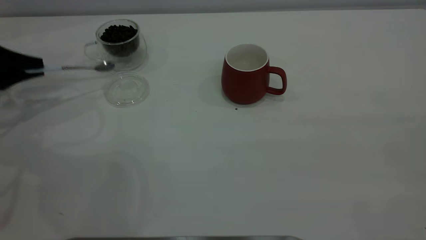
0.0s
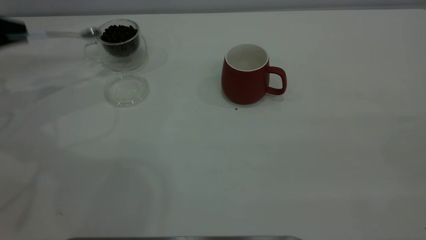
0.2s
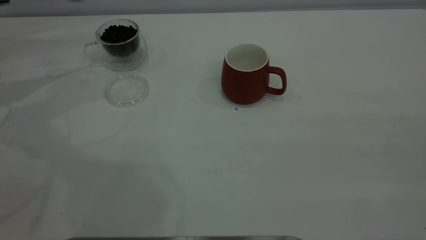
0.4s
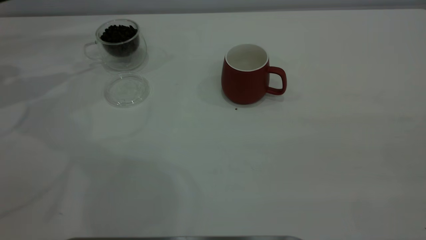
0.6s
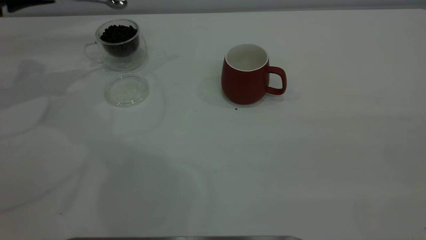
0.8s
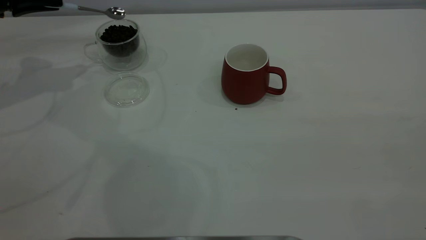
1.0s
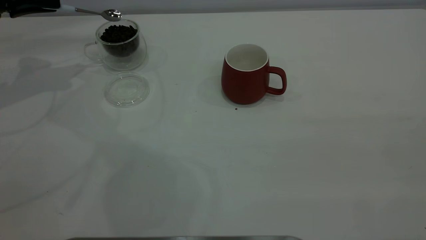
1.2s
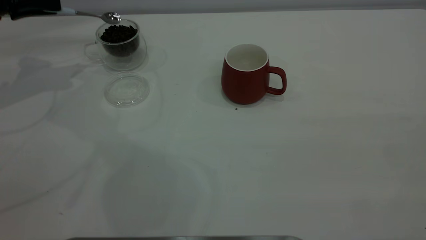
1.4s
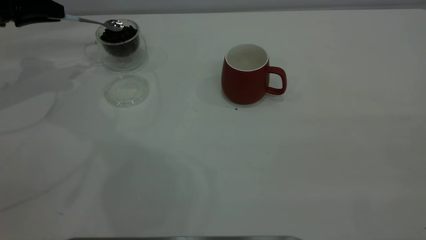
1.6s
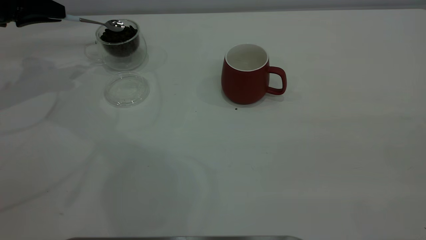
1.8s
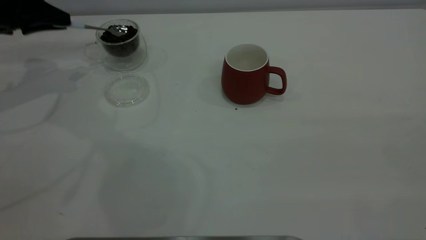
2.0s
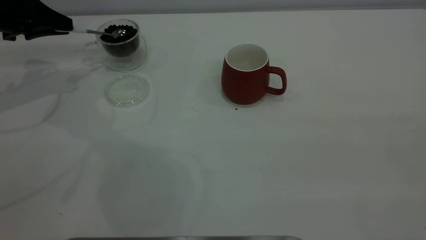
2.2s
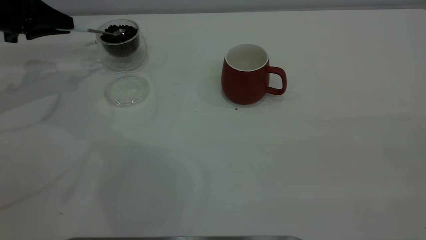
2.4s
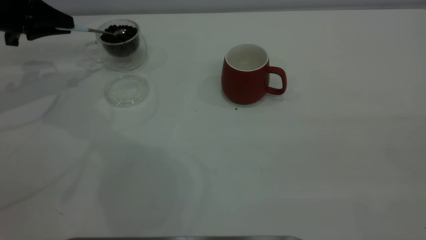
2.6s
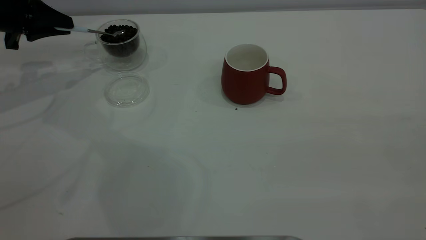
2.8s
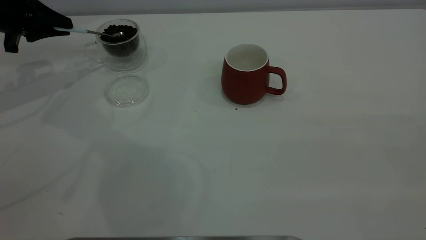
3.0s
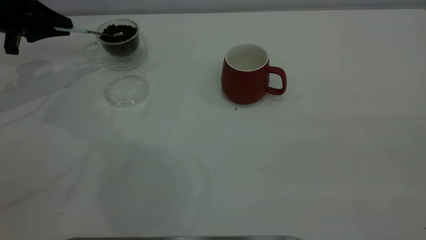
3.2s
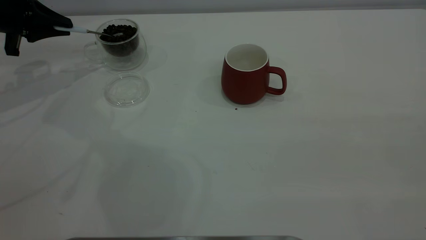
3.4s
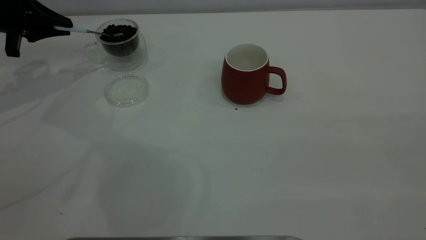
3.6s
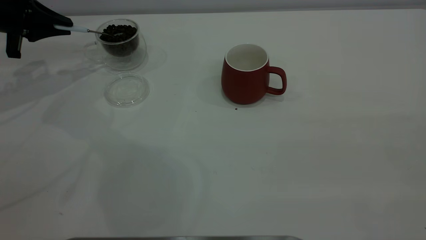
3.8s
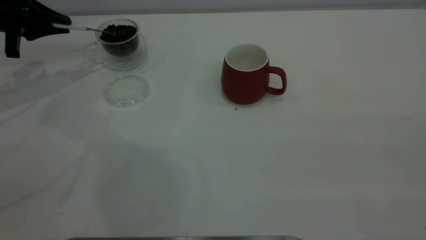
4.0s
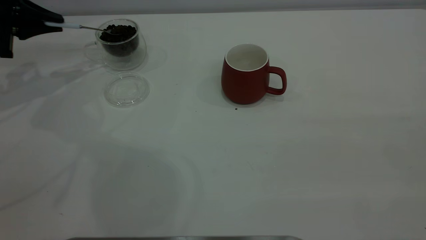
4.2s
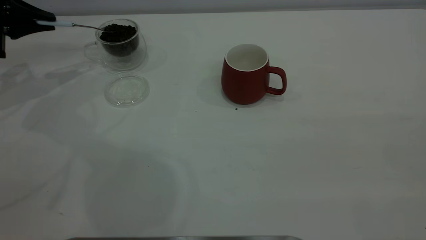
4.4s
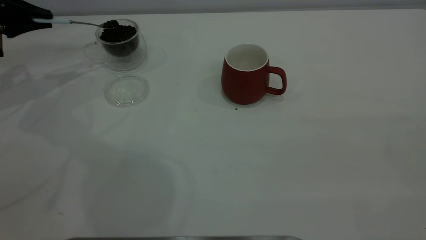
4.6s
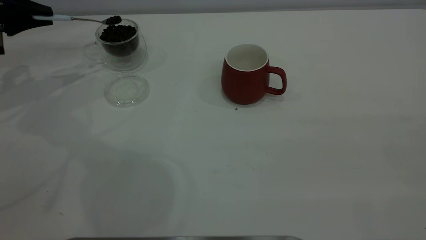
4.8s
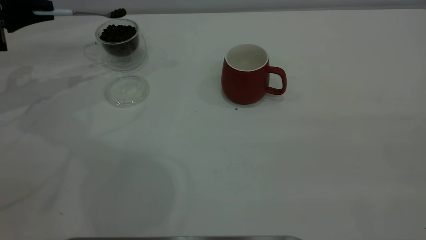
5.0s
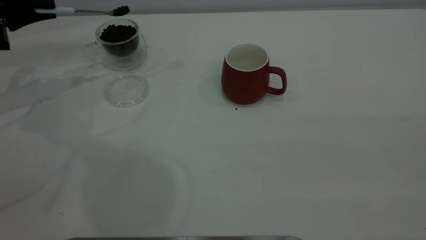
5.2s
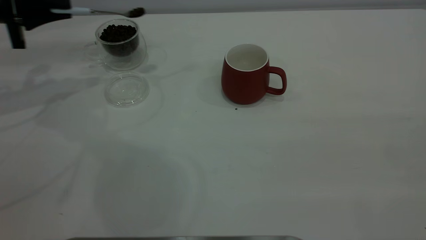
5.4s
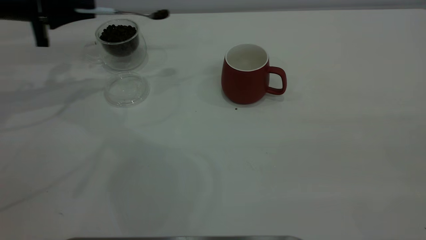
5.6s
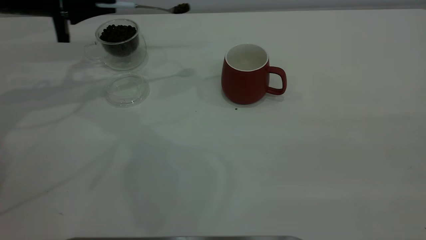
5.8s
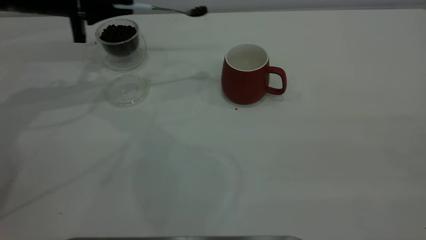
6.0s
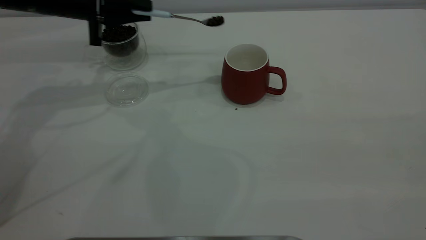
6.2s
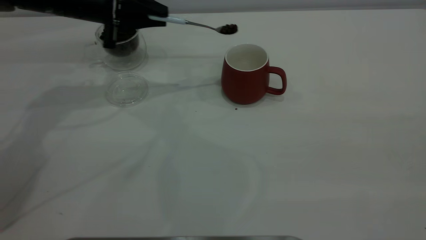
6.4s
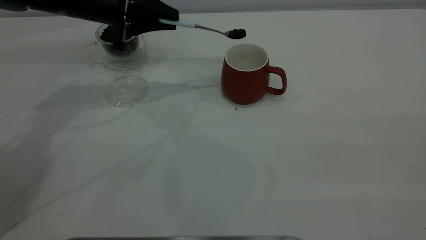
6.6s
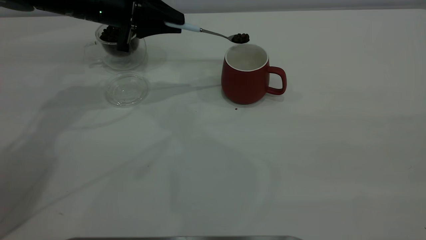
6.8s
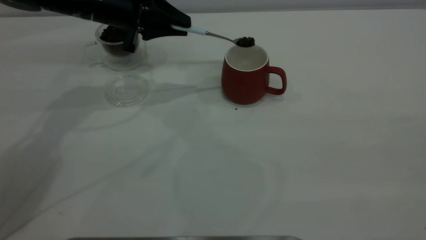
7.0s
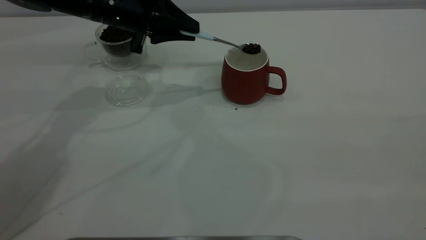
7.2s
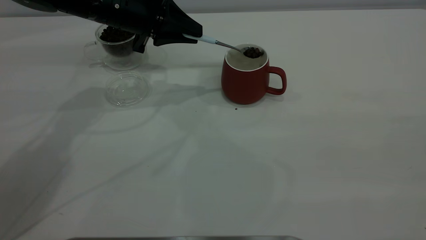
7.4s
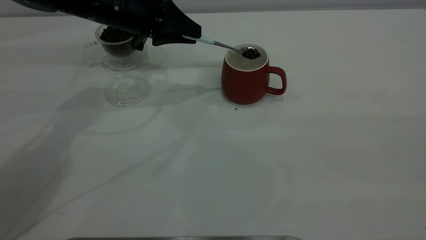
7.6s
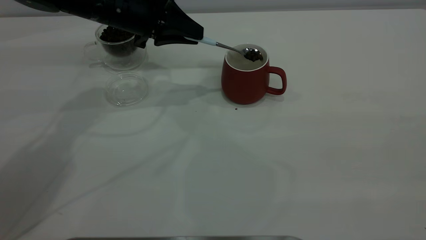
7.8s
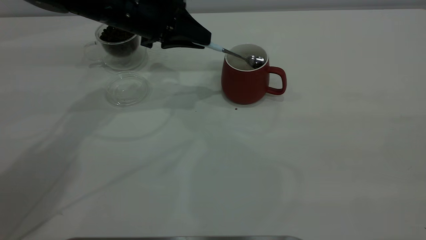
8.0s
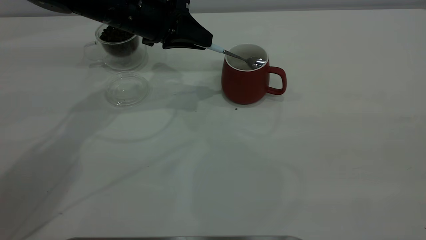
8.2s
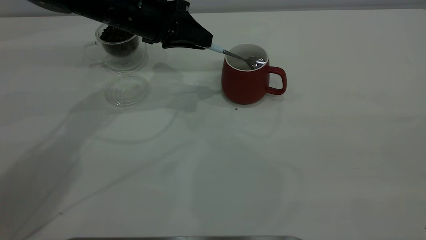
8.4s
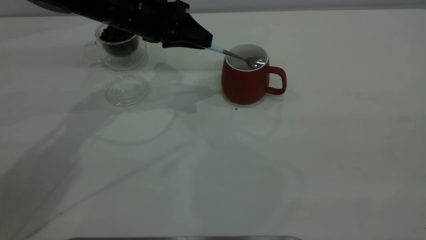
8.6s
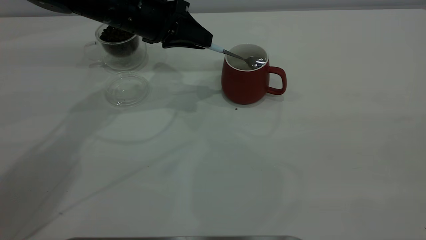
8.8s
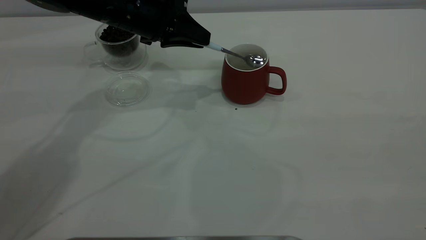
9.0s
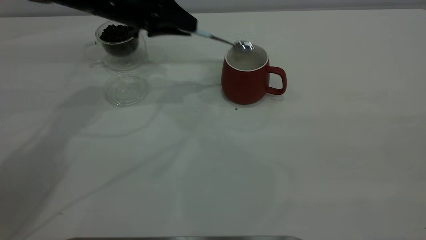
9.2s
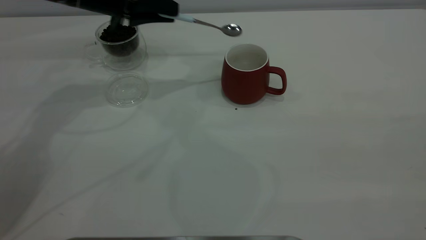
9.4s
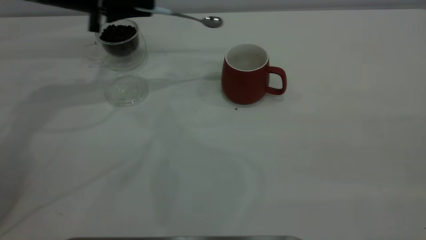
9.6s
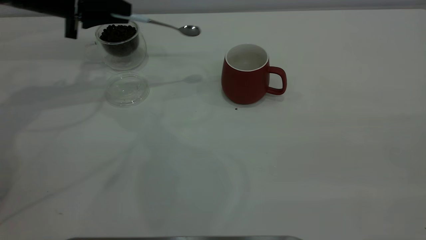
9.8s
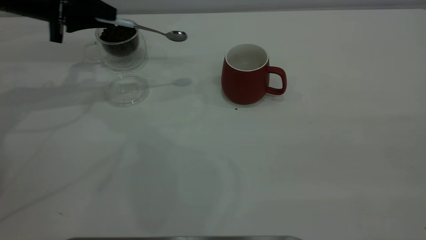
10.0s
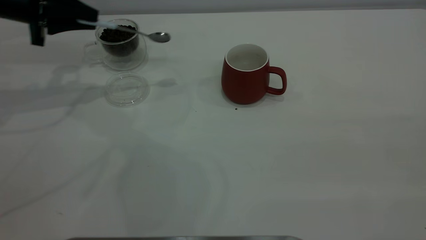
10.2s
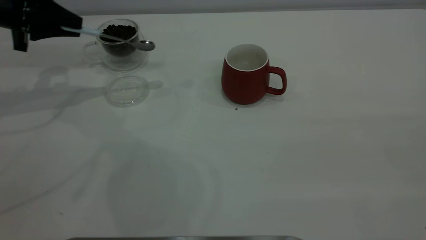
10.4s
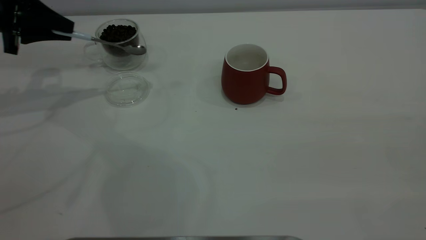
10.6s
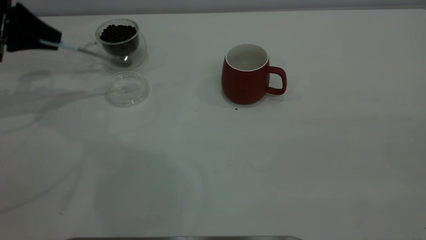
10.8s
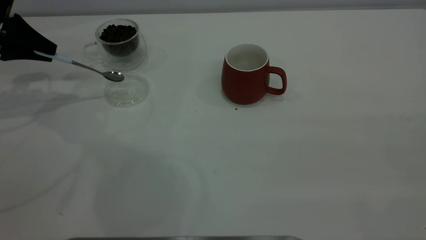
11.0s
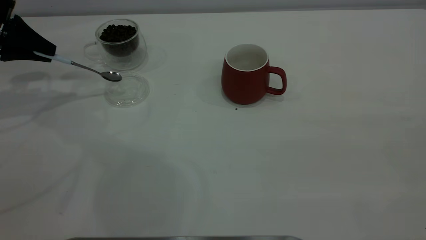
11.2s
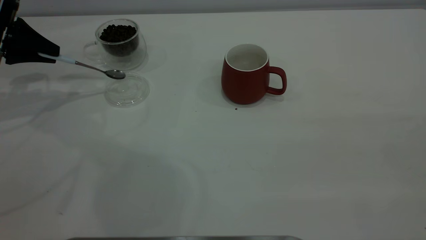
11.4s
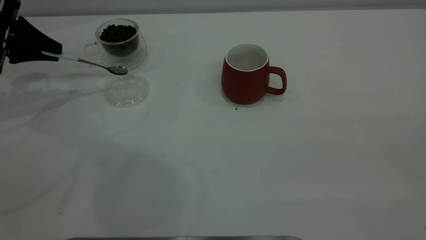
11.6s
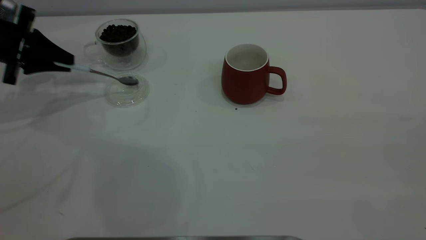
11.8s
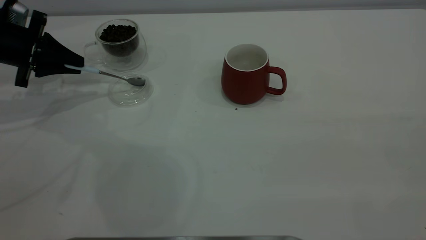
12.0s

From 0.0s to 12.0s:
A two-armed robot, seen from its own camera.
Task of the whole recording: the right gripper place the red cup in the center of the table, the left gripper take the blue spoon from the cup lid and scoop out the coffee beans from the coffee cup and put them into the red cup, the left gripper put the spoon back into the cup lid.
Step, from 0.0s to 9.2s: Scoop a spoonful of beans into the cup.
From 0.0s to 1.6s: The left gripper moves upward and forward, about 10 cm.
From 3.0s to 4.4s: The grippers make only small movements.
From 4.4s to 6.0s: The left gripper heads to the right, covering about 15 cm.
From 6.0s to 7.6s: The left gripper is displaced to the right by approximately 10 cm.
From 7.6s to 9.0s: The grippers stay close to where they were, moving slightly.
From 9.0s to 10.4s: The left gripper moves to the left, some 20 cm.
From 10.4s to 12.0s: The left gripper moves downward, roughly 5 cm.

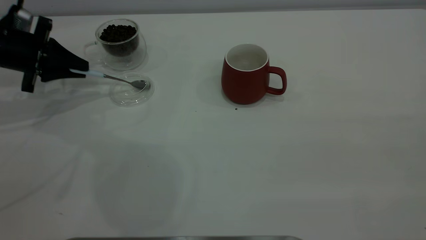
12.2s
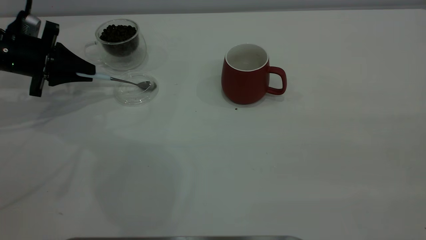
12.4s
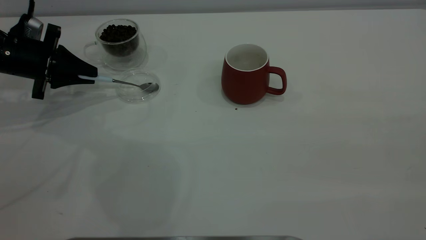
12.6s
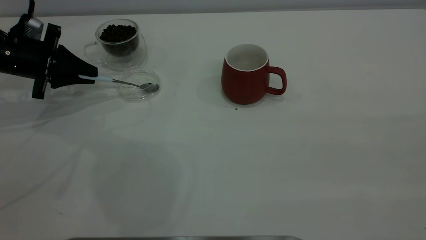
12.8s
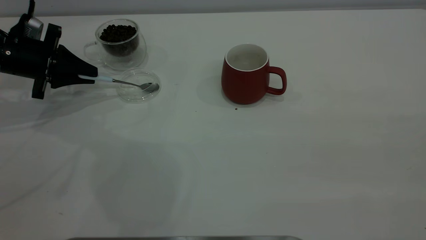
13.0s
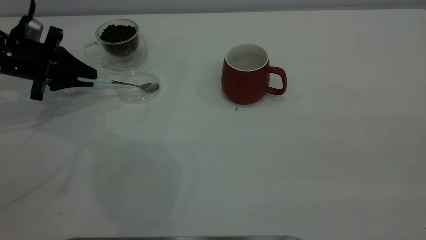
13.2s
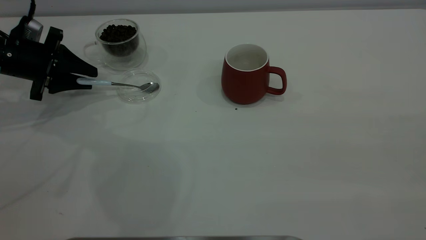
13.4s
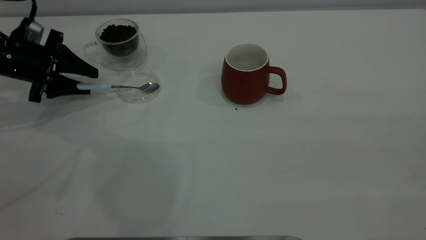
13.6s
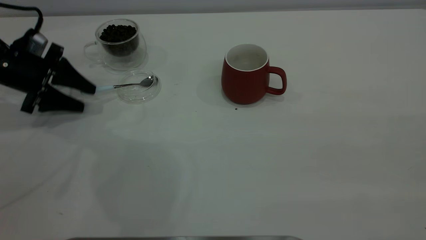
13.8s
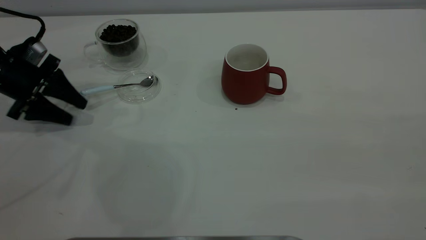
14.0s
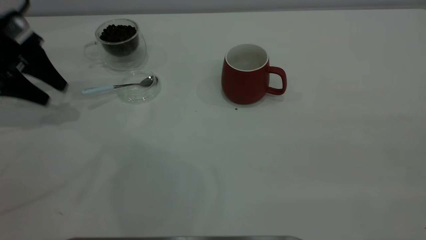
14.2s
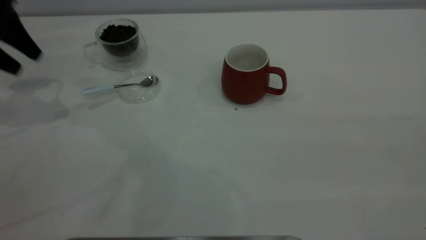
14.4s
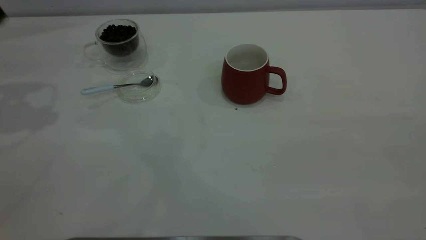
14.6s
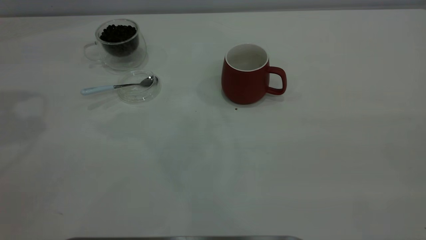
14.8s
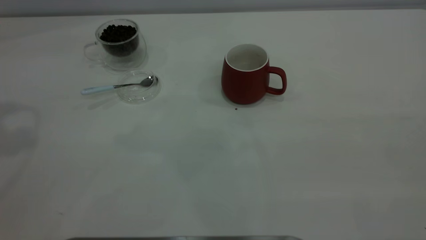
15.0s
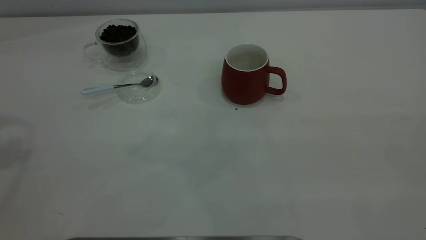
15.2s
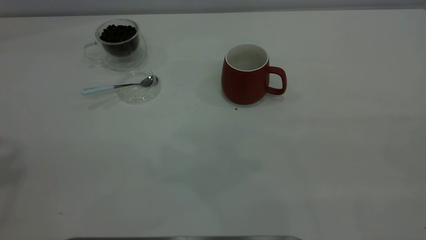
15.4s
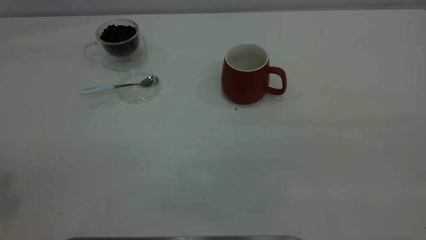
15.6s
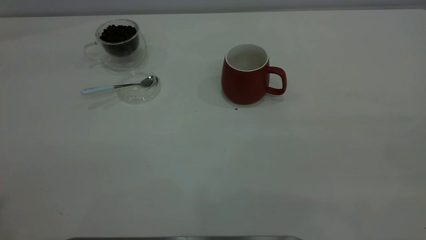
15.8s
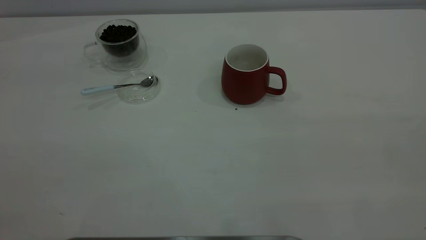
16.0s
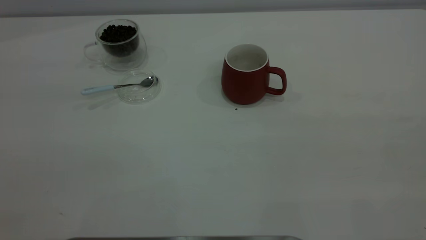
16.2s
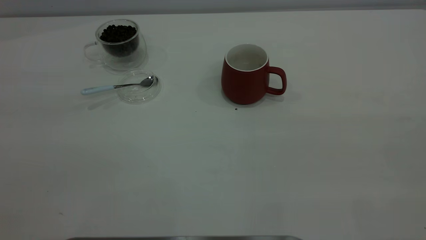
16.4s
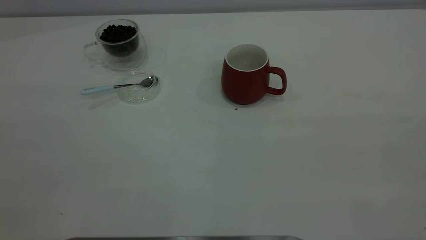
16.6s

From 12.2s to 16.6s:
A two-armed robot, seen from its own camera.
Task of the whole recording: the right gripper place the red cup in the center of the table, the left gripper take the blue spoon from the cup lid and scoop out the coffee beans from the coffee cup and put them into the red cup, the left gripper put the spoon back into the cup lid.
From 12.2s to 13.6s: The left gripper opens.
From 13.6s to 15.2s: The left gripper is displaced upward by roughly 40 cm.
